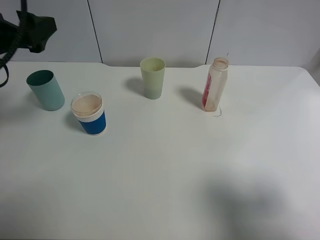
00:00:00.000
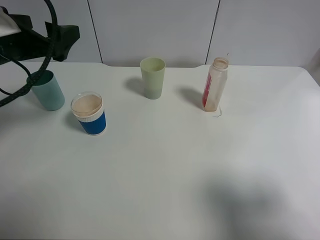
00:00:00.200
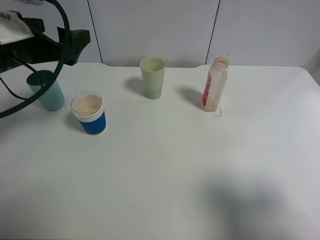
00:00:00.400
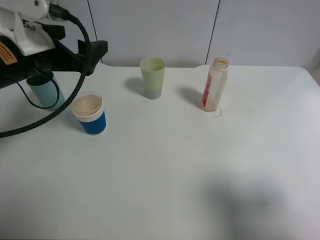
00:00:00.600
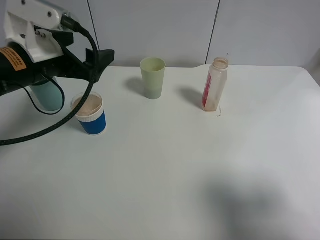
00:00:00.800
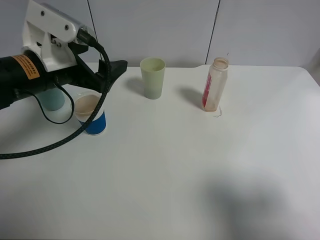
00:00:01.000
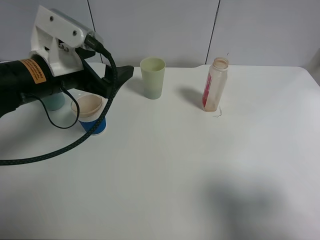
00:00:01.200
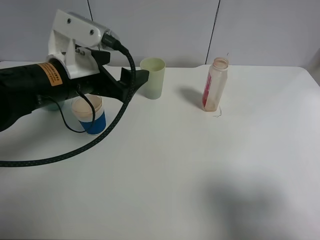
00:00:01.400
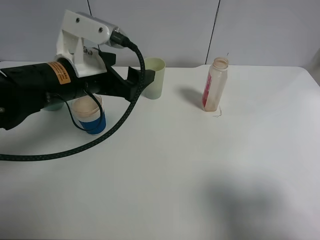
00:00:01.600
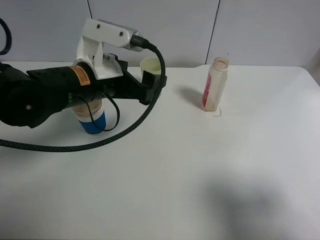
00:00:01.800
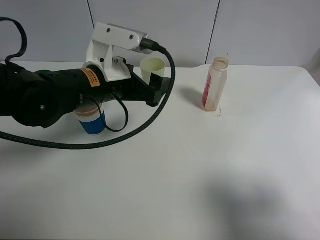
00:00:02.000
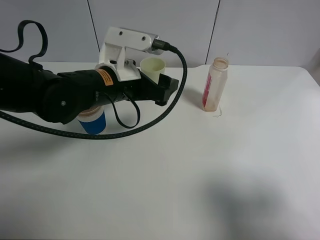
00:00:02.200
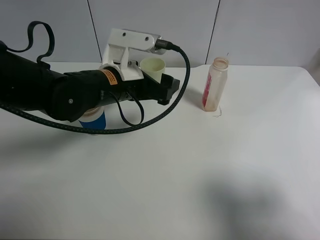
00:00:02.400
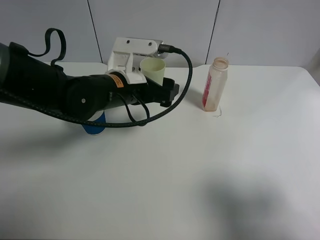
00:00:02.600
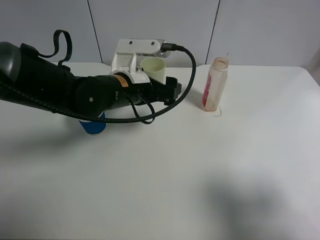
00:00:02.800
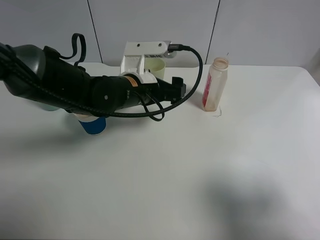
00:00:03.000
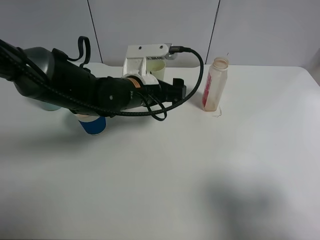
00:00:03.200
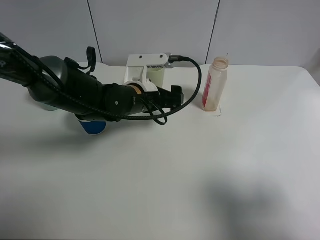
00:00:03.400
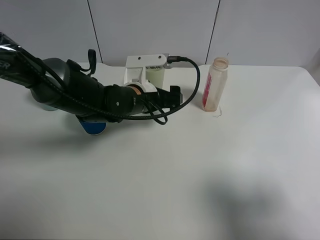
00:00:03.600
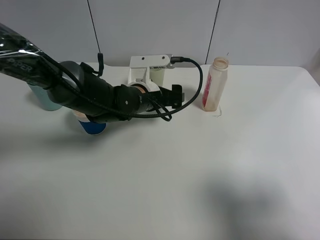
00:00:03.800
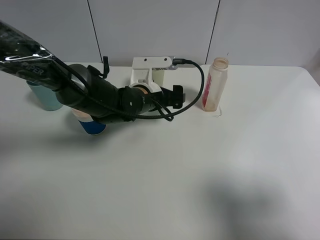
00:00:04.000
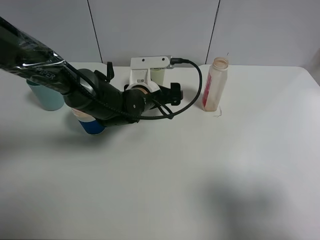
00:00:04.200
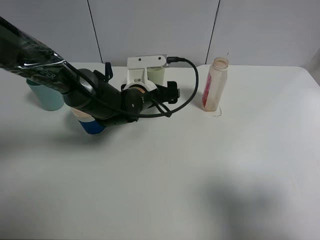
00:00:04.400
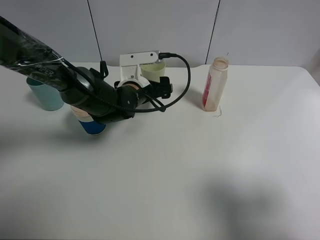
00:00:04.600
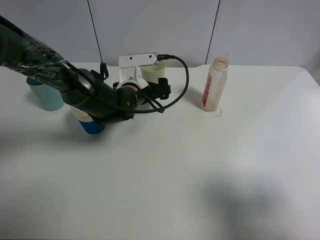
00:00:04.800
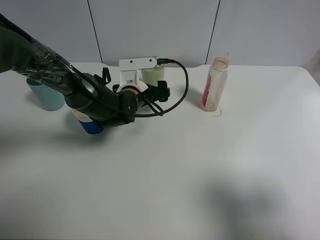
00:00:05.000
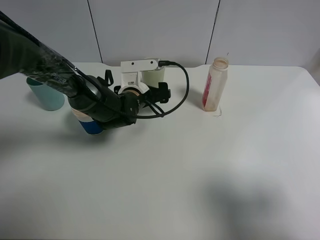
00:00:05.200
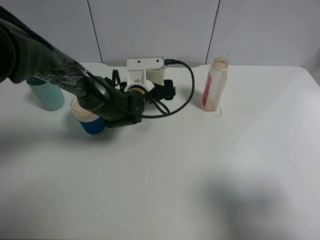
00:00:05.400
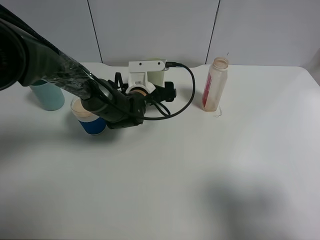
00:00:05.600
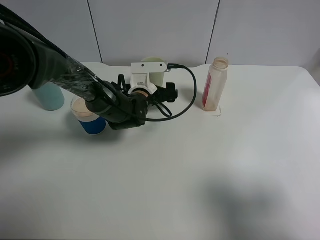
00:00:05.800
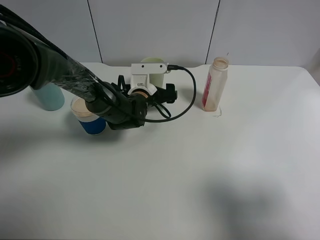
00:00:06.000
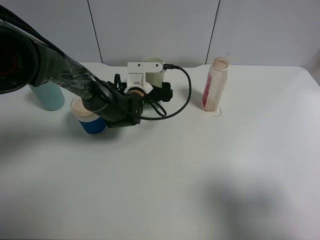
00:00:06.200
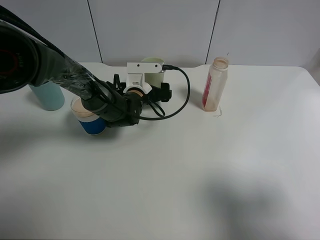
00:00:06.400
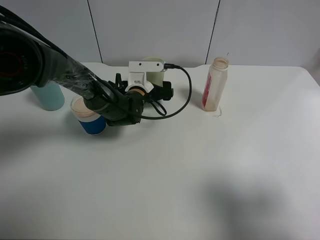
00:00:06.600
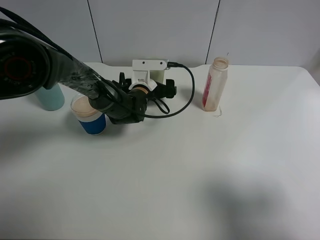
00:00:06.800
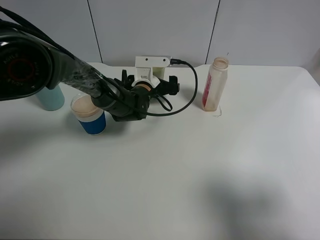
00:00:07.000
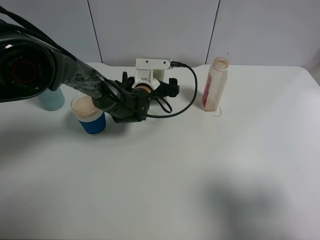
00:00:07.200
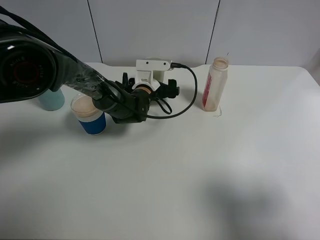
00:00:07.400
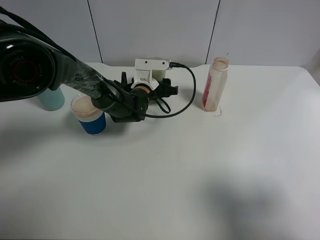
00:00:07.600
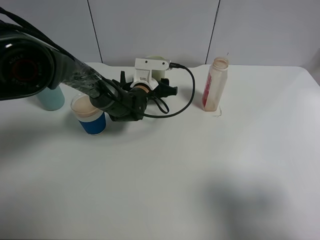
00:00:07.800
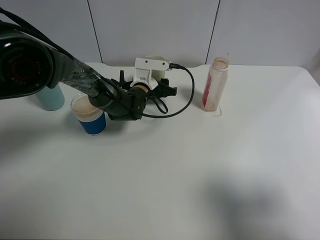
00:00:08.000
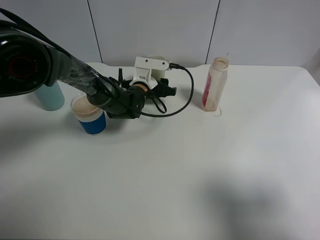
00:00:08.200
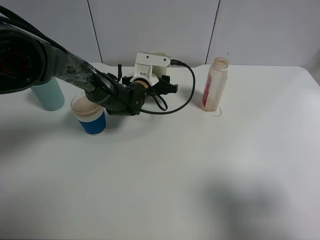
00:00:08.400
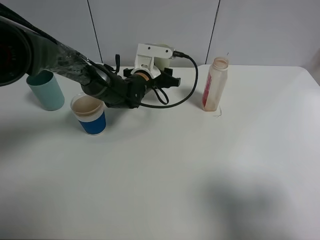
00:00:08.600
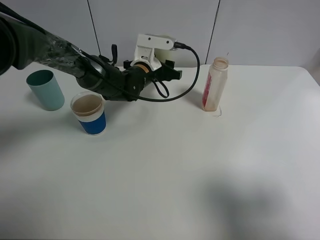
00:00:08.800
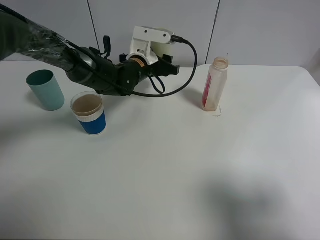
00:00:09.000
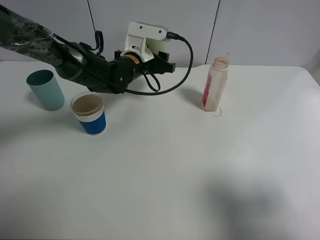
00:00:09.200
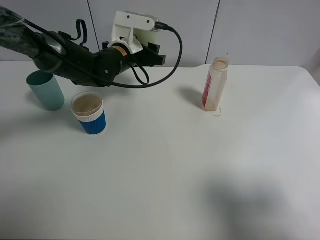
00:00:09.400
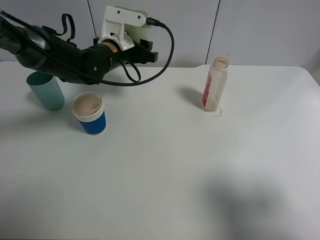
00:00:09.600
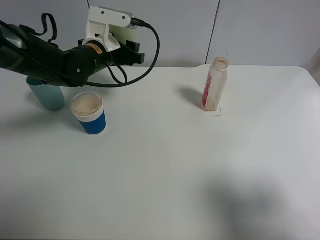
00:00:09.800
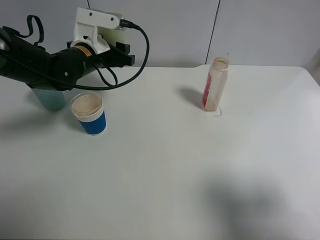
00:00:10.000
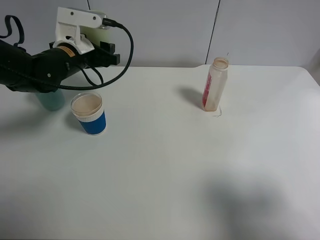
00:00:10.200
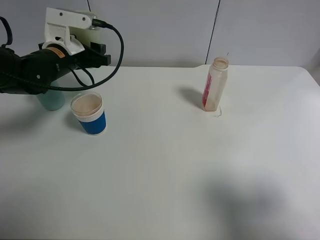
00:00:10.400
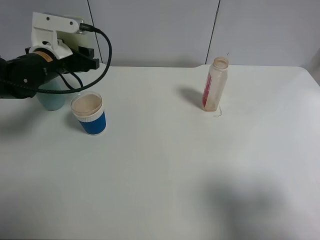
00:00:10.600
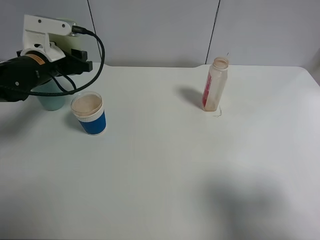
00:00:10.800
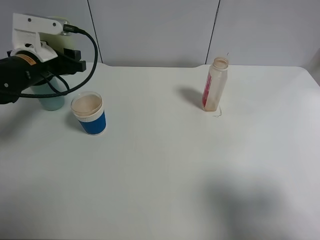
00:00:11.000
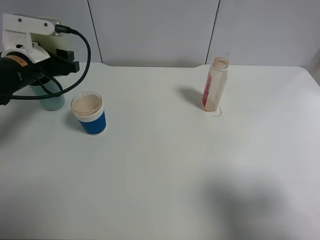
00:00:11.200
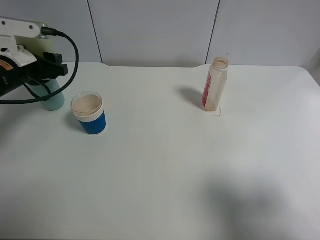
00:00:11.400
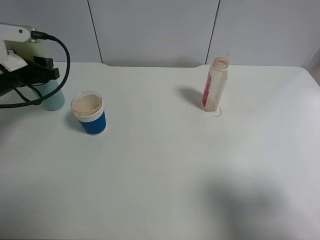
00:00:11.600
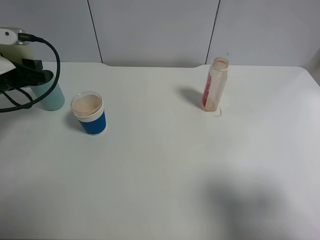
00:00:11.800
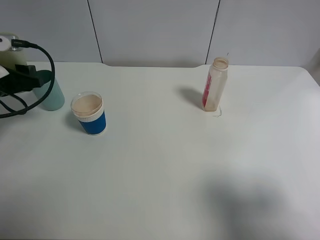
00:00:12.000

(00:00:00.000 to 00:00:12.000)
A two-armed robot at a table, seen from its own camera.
Task of the whole recording: use a clamp to hold the bottle of the drink, pour the beverage into a random cup, then clamp the cup containing the drink and pour the drink into another random cup.
Step, 00:00:00.000 - 00:00:09.200: Pick up the green plastic cup with left gripper.
00:00:00.000 - 00:00:01.600: The left gripper goes approximately 15 cm to the right and downward.
00:00:01.600 - 00:00:03.000: The left gripper is displaced to the right, downward and forward by some 10 cm.
00:00:03.000 - 00:00:04.400: The left gripper heads downward, covering approximately 5 cm.
00:00:04.400 - 00:00:06.000: The left gripper moves some 5 cm.
00:00:06.000 - 00:00:07.600: The left gripper closes.
00:00:07.600 - 00:00:09.000: The left gripper heads upward, covering roughly 10 cm.
00:00:09.000 - 00:00:10.400: The left gripper is displaced to the left by some 15 cm.
00:00:10.400 - 00:00:12.000: The left gripper shifts about 15 cm to the left and backward.

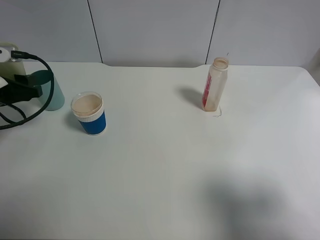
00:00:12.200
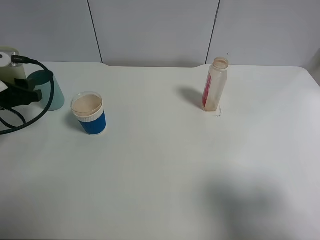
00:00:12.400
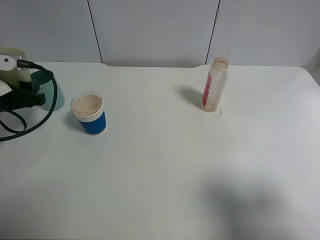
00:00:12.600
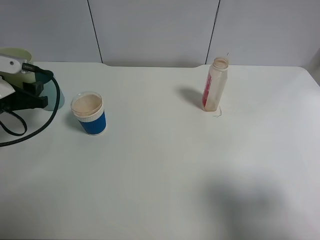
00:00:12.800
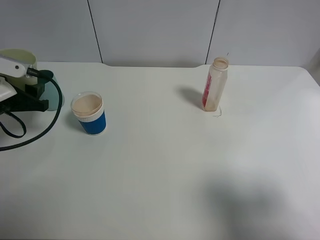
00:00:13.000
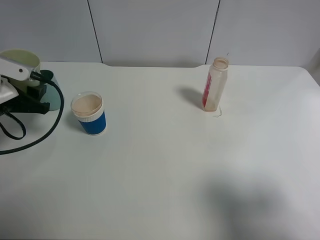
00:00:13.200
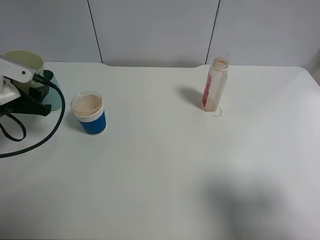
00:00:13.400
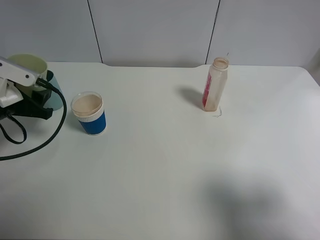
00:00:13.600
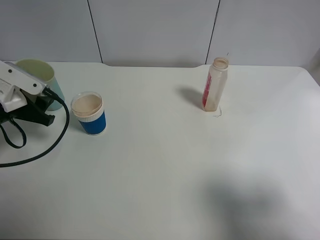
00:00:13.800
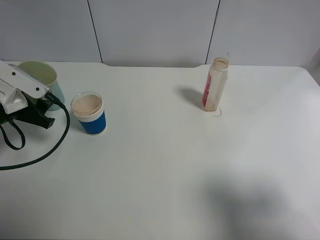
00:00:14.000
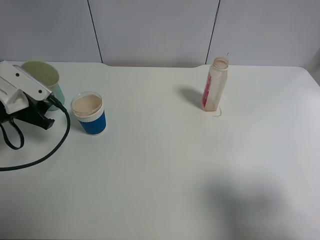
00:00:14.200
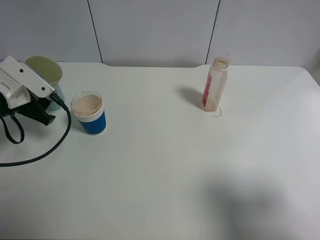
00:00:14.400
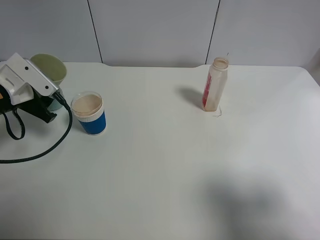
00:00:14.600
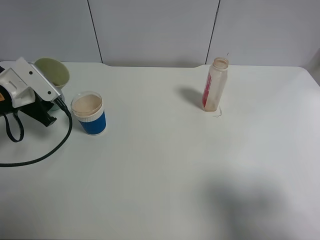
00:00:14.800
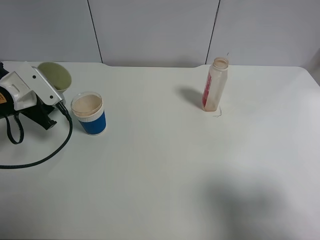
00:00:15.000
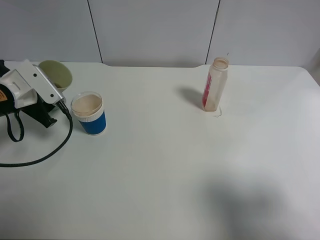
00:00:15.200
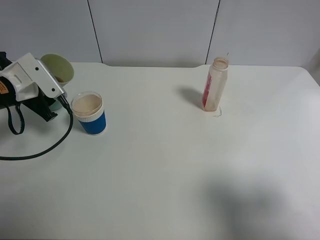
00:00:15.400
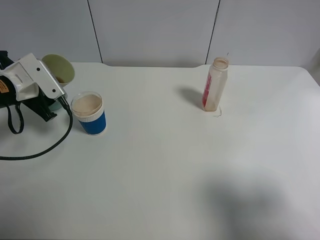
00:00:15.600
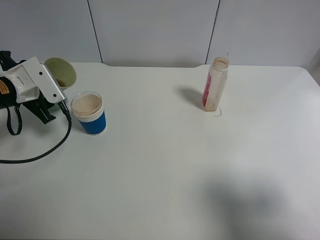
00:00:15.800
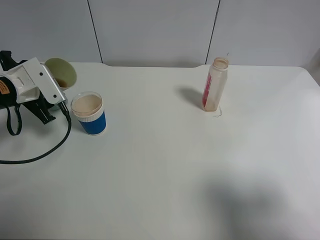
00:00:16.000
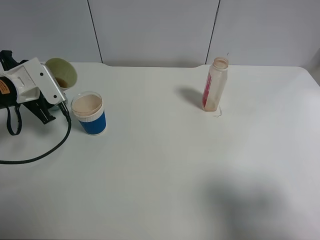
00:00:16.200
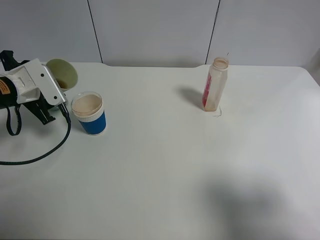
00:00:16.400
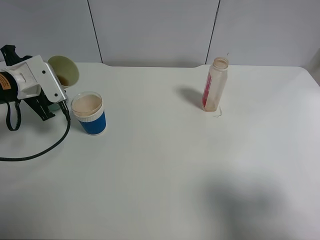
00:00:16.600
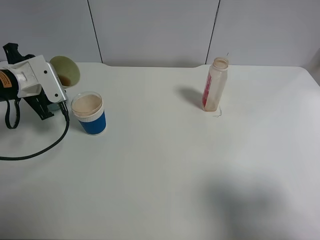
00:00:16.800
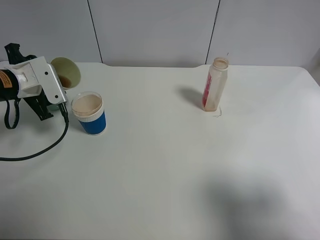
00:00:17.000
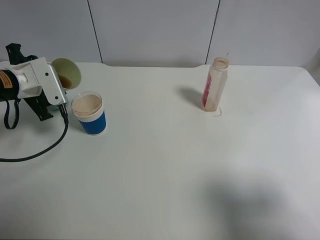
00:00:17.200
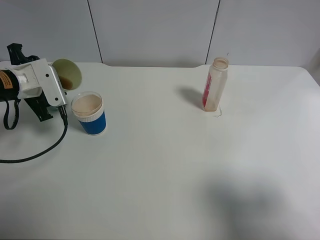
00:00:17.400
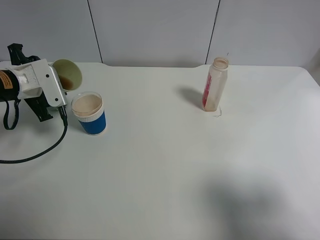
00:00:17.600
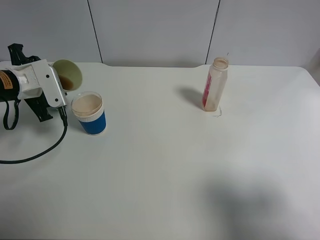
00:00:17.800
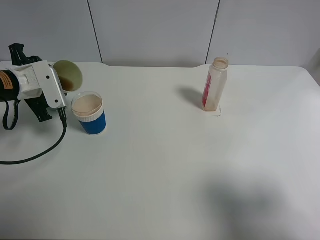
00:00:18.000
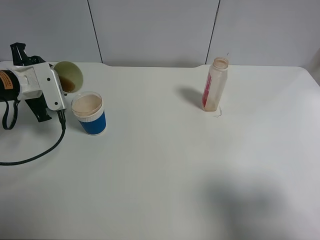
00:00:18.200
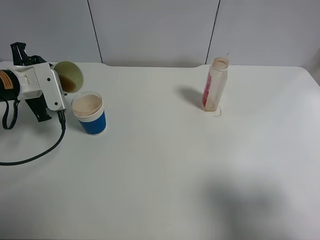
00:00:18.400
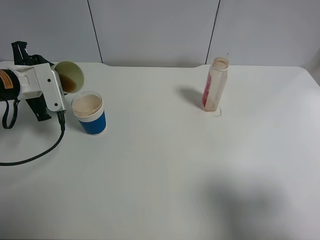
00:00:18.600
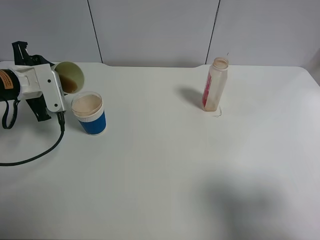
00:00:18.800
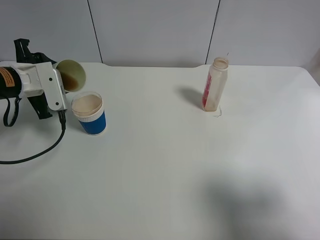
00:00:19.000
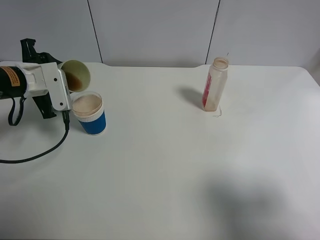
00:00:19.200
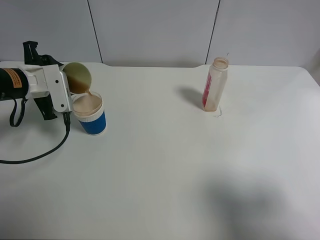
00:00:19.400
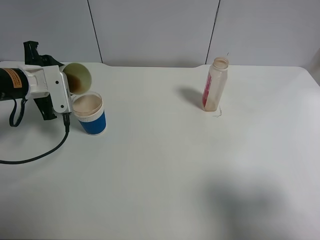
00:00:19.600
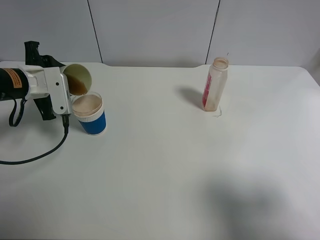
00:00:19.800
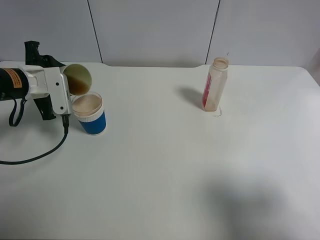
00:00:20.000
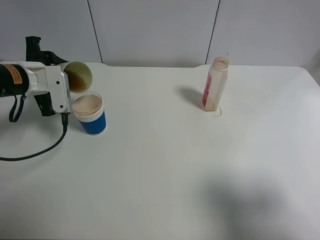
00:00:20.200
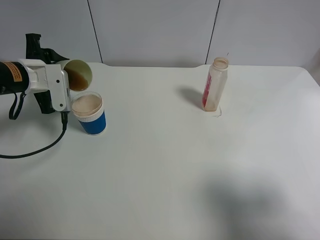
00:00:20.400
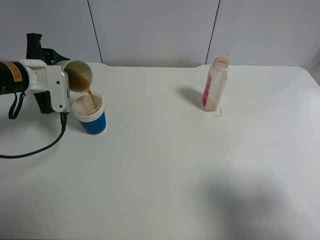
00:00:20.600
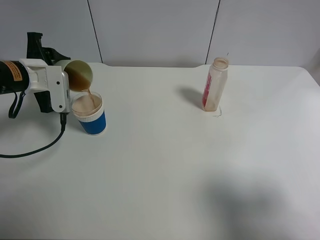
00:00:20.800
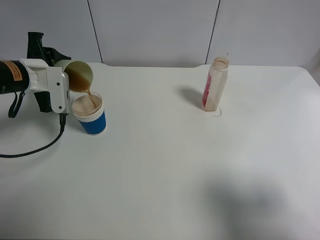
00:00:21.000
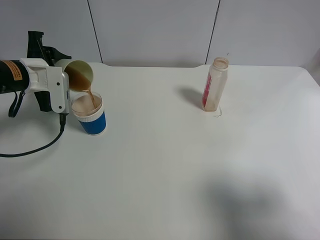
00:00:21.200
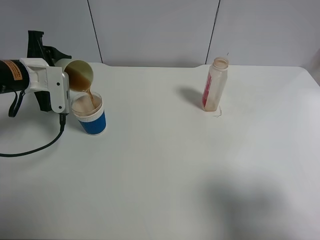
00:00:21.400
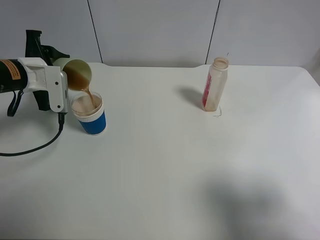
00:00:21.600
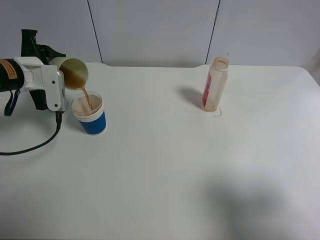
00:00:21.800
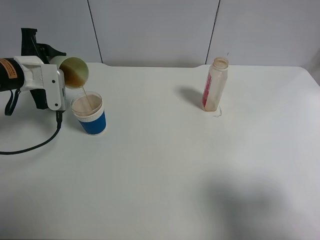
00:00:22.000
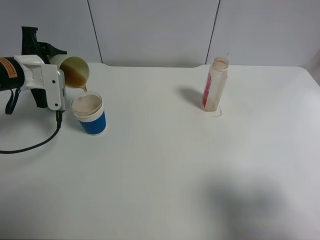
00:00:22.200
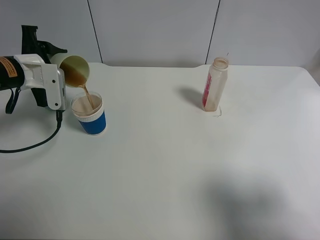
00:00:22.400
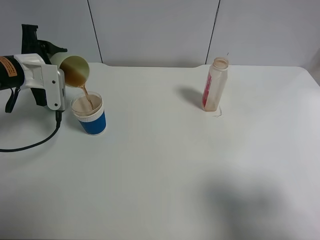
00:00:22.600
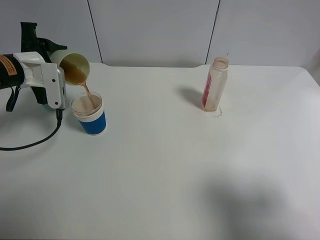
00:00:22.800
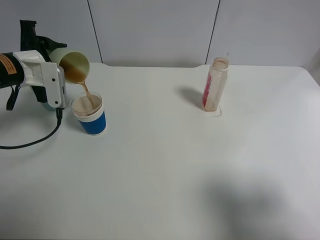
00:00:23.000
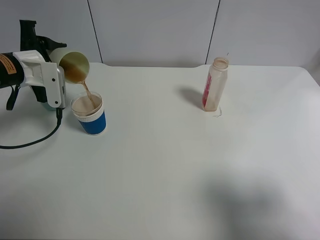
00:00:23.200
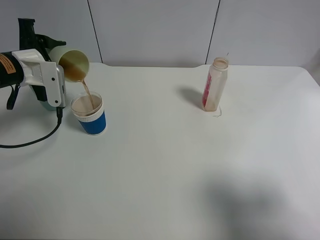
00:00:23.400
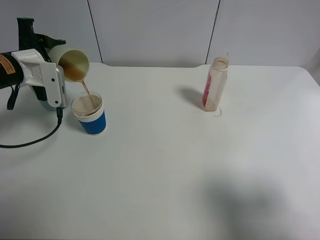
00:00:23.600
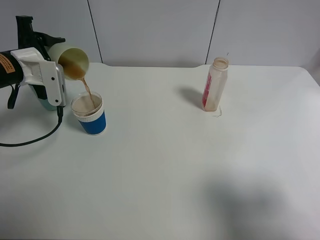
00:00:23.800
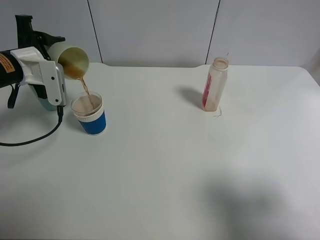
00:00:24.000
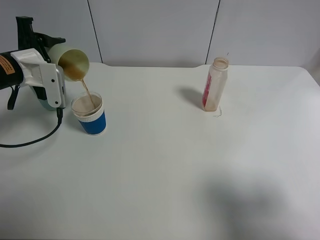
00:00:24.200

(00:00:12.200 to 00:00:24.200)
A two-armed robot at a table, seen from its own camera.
Task of the whole recording: use a clamp to hold the bottle of the drink, pour the beverage into a random cup, then clamp the cup containing the drink and pour the drink into another random cup.
00:00:15.200 - 00:00:16.600: The grippers stay close to where they were, moving slightly.
00:00:16.600 - 00:00:19.800: The grippers make only small movements.
00:00:19.800 - 00:00:22.600: The grippers move only a little.
00:00:22.600 - 00:00:24.200: There are only small adjustments of the grippers.
